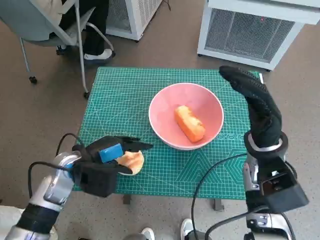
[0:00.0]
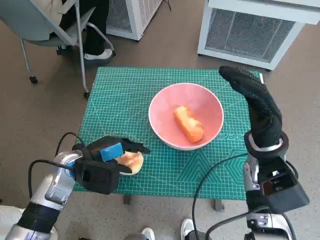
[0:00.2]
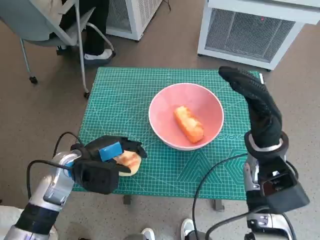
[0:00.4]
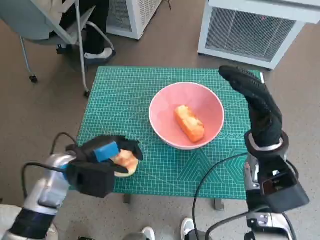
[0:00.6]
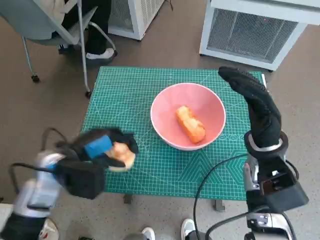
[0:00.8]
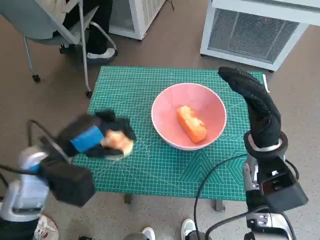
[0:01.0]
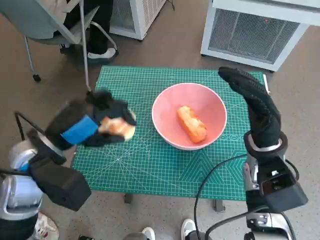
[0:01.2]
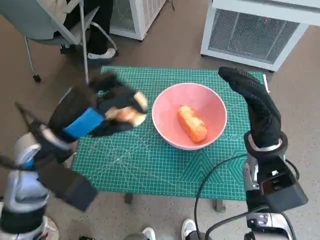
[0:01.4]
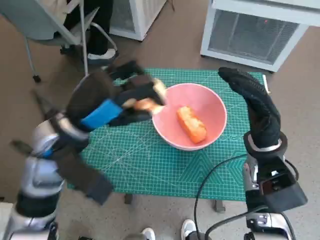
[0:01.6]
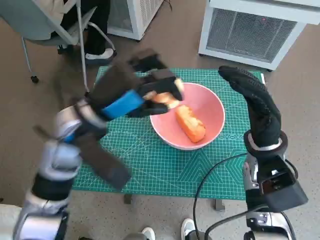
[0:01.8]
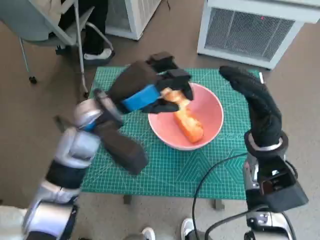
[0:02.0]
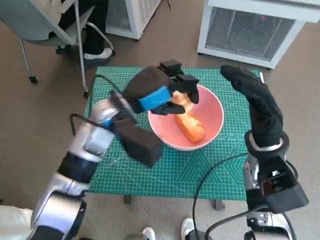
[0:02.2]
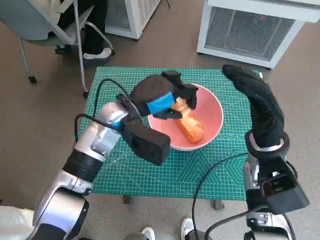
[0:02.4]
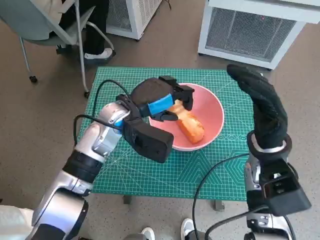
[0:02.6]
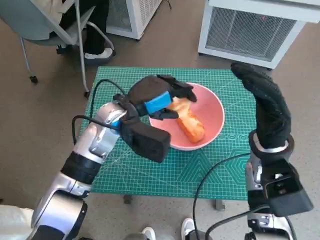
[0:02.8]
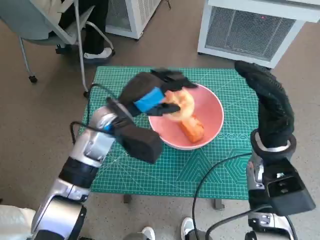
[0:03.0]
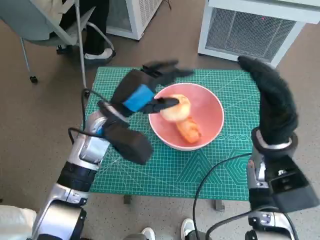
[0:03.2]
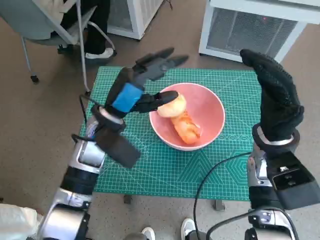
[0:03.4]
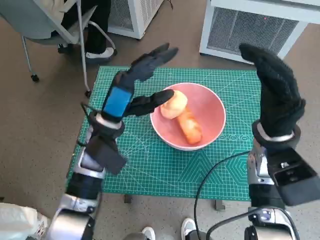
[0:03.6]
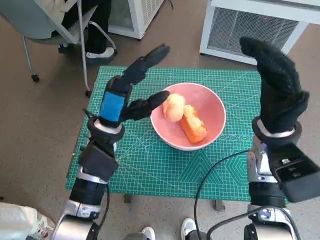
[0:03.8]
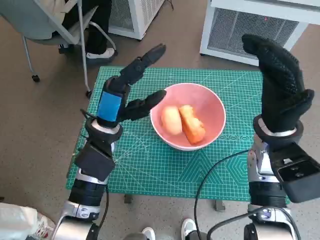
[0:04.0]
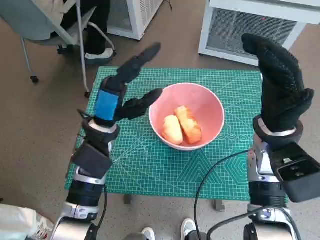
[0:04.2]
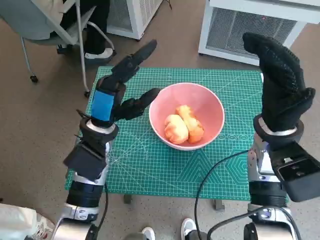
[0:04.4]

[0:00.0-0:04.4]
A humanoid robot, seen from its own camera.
Task of the whole recording: Push the bowl to the center of the table and put the bread into the bowl.
Step, 0:00.6 to 0:03.2: Place the round bread in pink bowl with left hand.
0:00.0 to 0:01.4: The left hand heads upward, covering some 10 cm.
0:01.4 to 0:03.0: The left hand goes roughly 10 cm forward and to the right.

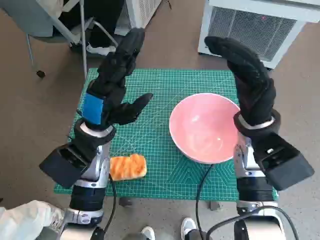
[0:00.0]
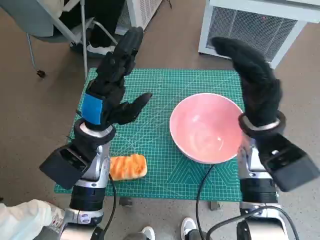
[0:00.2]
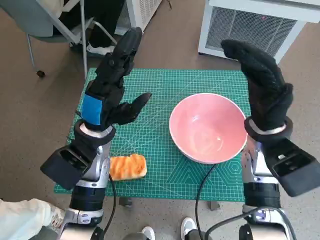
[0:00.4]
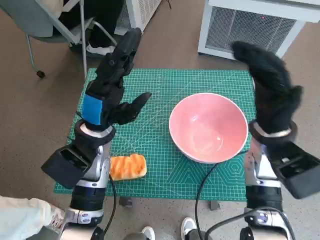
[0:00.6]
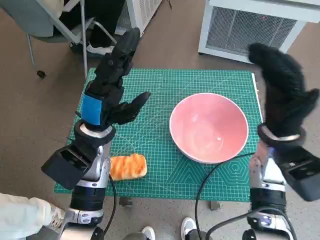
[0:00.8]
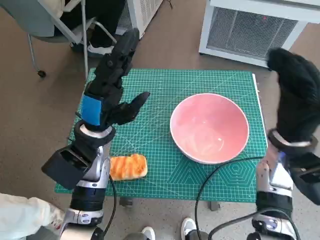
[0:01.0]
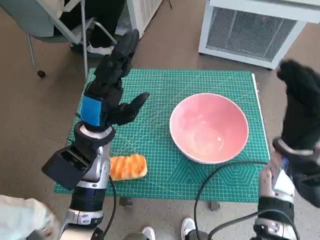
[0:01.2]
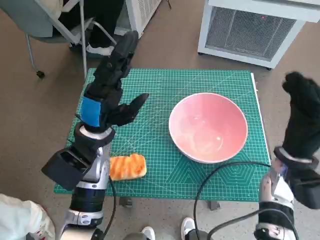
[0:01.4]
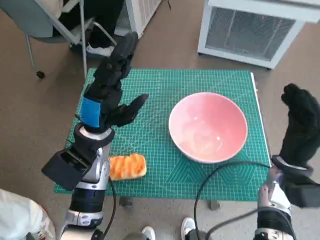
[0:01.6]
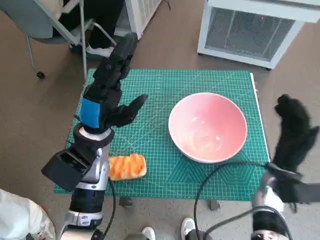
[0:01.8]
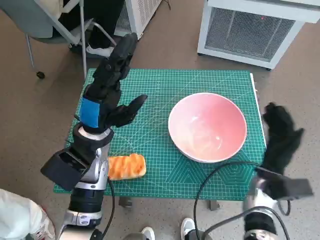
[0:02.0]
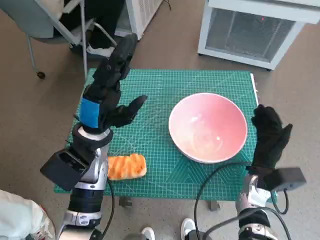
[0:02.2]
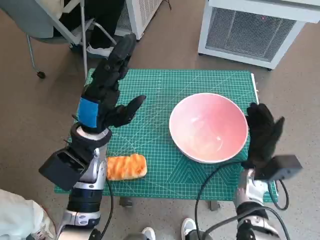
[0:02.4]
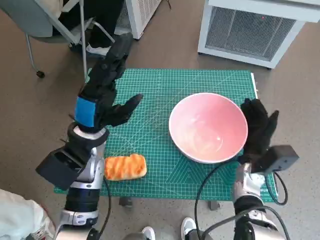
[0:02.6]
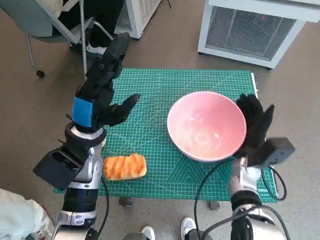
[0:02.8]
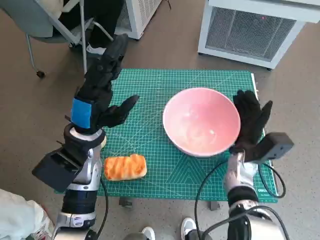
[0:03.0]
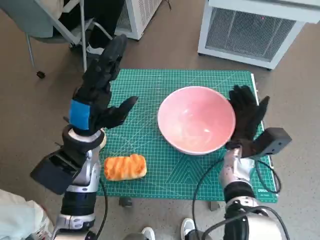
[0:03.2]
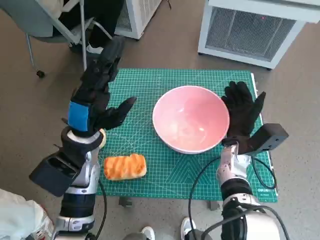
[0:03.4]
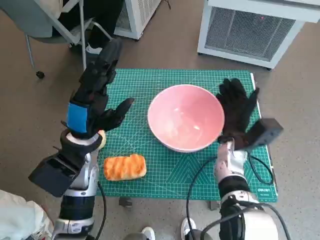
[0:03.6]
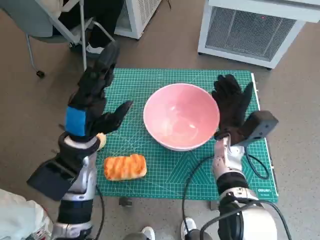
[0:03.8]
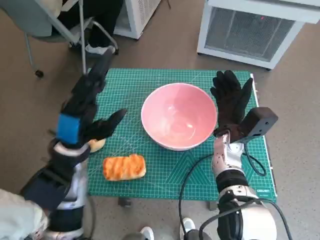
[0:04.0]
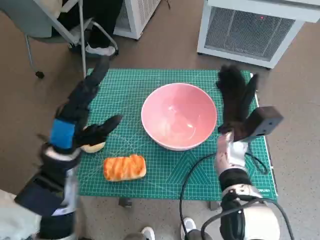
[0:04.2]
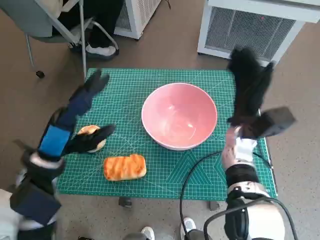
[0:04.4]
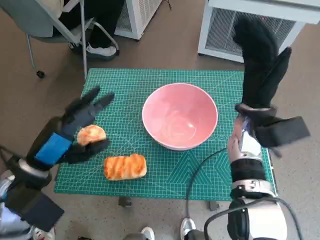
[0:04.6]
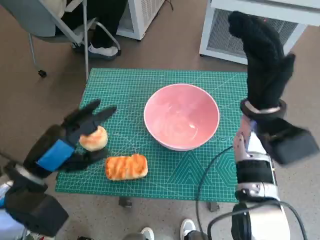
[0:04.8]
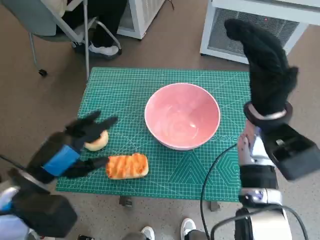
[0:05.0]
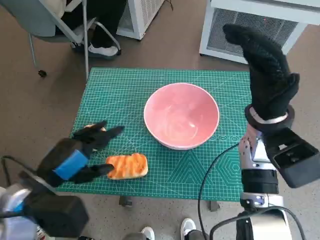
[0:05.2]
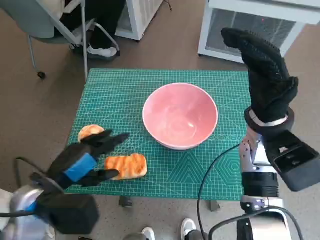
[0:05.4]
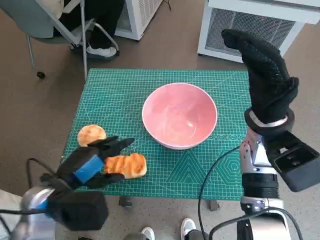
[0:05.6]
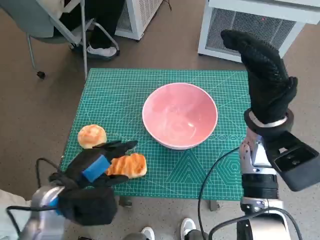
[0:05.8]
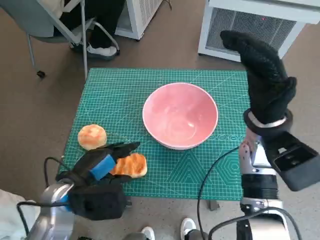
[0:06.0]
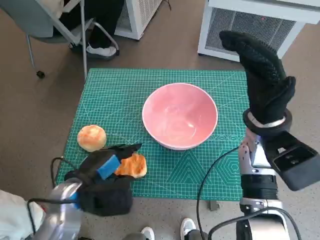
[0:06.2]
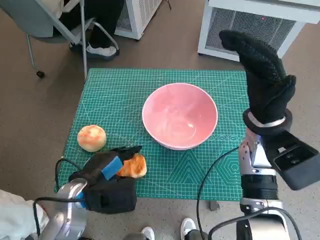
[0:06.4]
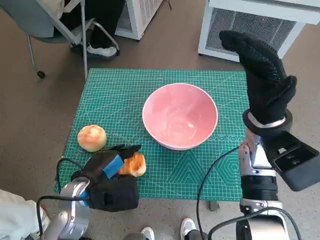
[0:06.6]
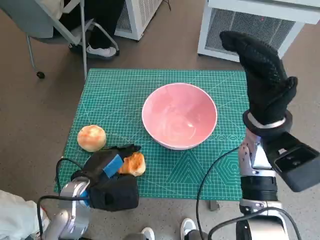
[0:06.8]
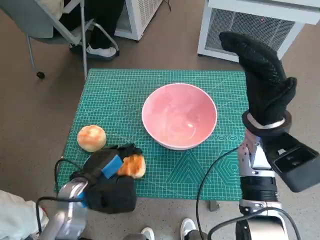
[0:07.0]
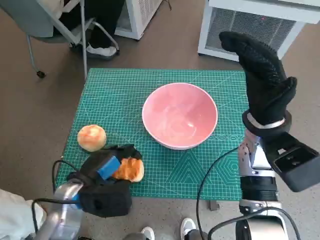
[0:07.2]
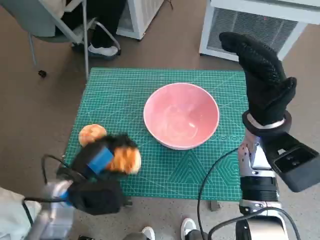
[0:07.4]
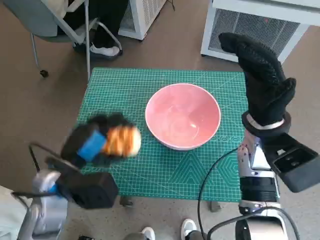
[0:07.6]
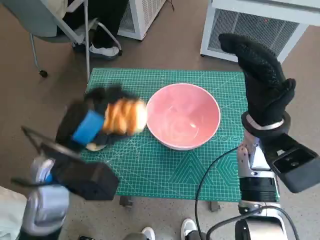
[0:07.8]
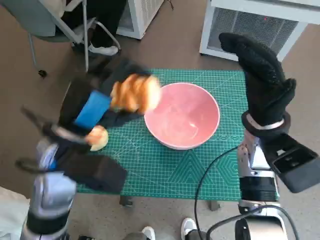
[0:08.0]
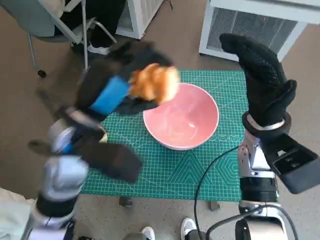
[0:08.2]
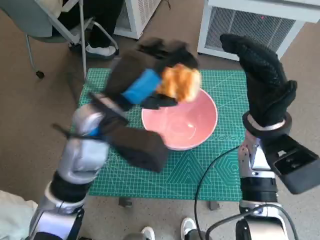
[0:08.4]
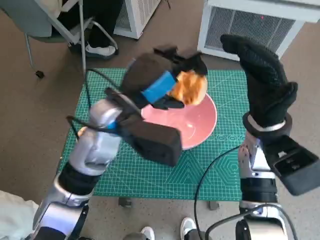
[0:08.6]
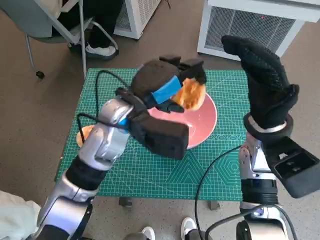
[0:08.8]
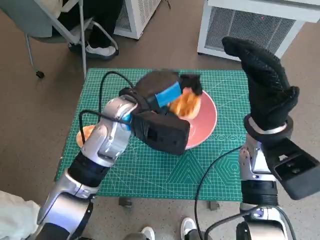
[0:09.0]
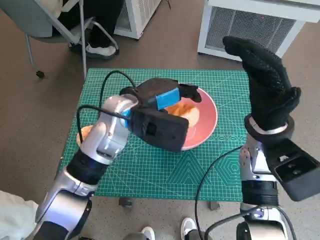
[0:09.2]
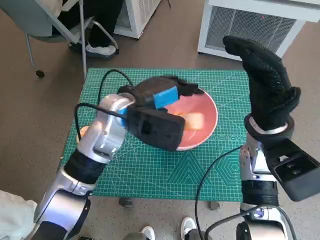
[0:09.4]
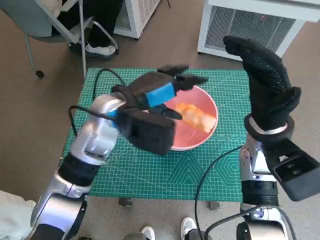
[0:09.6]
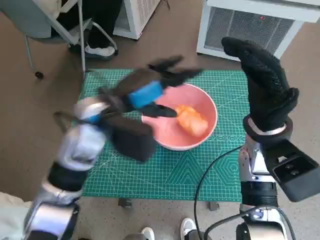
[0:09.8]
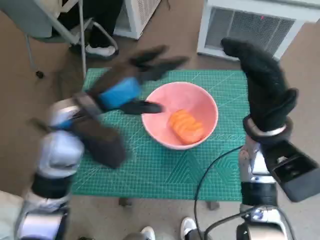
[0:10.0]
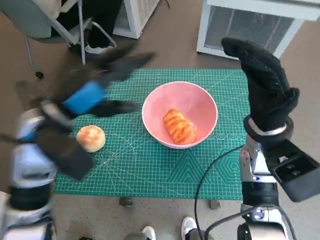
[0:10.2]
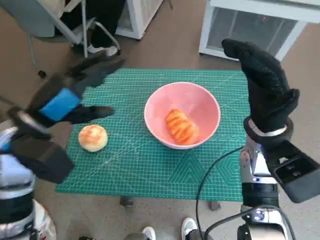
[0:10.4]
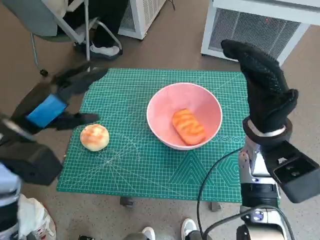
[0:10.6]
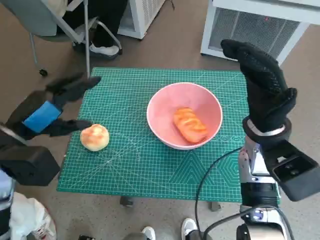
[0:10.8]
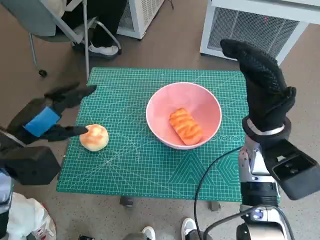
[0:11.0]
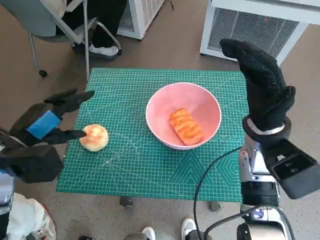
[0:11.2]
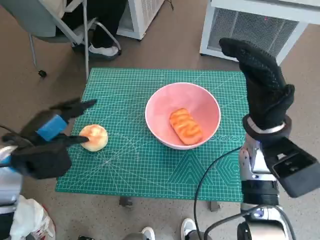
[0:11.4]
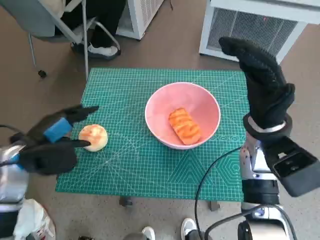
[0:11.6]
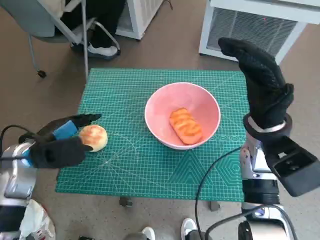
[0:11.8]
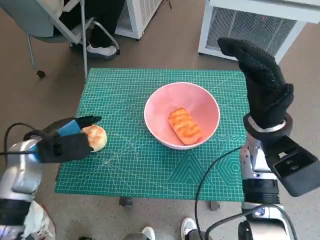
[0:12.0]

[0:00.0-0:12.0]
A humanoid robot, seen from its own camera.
Task of the whole recording: Push the bowl to the center of the table and put the bread into the bowl.
Step, 0:00.0 to 0:04.2: Move the pink bowl to the center of table with right hand.
Step, 0:04.4 to 0:07.0: Grasp the long bread with left hand.
Step, 0:07.2 to 0:09.6: Place the long bread in pink bowl with left hand.
0:01.6 to 0:03.0: The right hand travels to the left by about 5 cm.
0:03.0 to 0:04.4: The right hand shifts about 5 cm upward, while the left hand moves backward and to the left, approximately 10 cm.
0:04.4 to 0:06.0: The right hand is displaced upward by approximately 10 cm. Meanwhile the left hand ends up some 5 cm from where it was.
0:07.6 to 0:09.0: The left hand travels to the right, forward and upward by approximately 15 cm.
0:09.0 to 0:10.4: The left hand goes some 15 cm to the left and backward.
0:10.4 to 0:12.0: The left hand is displaced downward by roughly 10 cm.

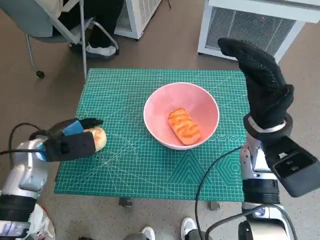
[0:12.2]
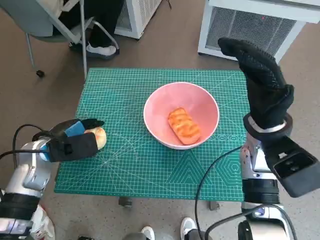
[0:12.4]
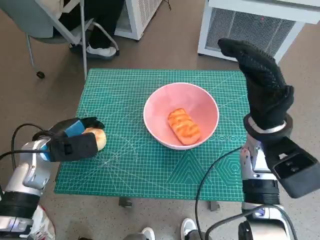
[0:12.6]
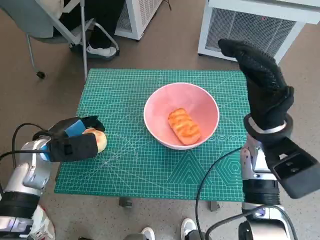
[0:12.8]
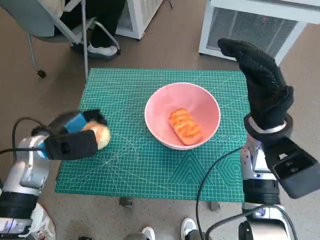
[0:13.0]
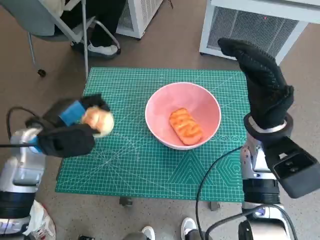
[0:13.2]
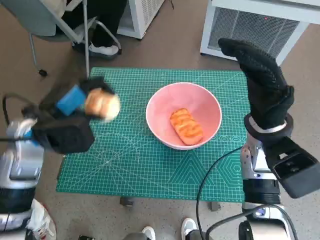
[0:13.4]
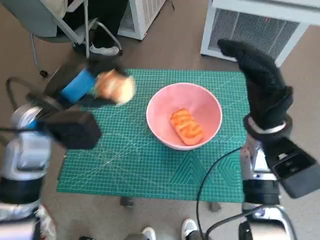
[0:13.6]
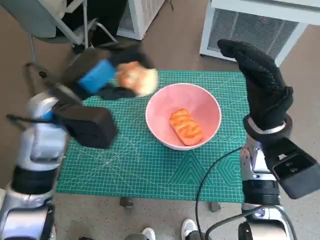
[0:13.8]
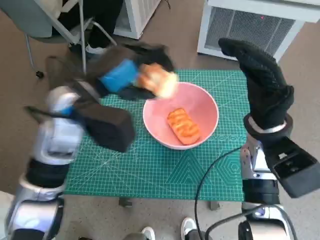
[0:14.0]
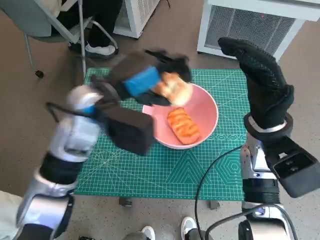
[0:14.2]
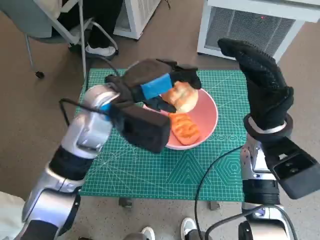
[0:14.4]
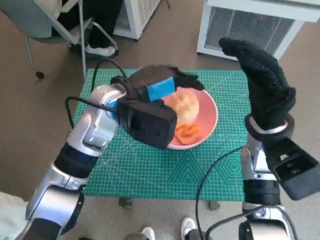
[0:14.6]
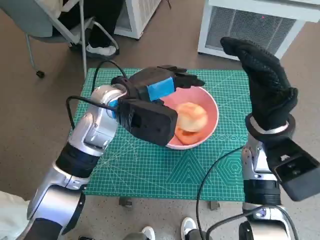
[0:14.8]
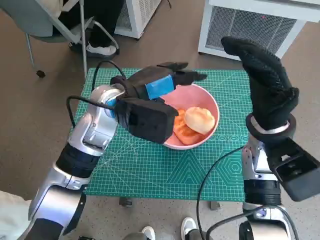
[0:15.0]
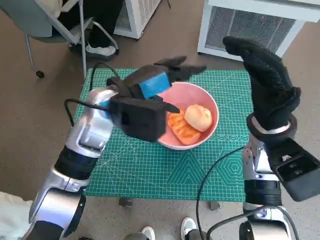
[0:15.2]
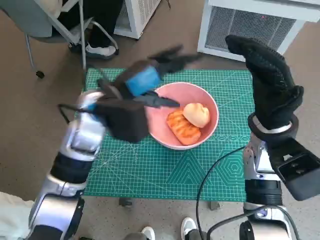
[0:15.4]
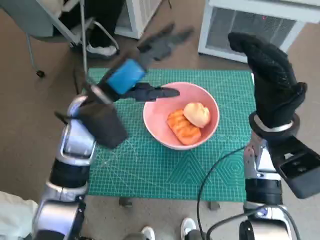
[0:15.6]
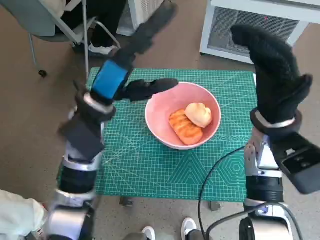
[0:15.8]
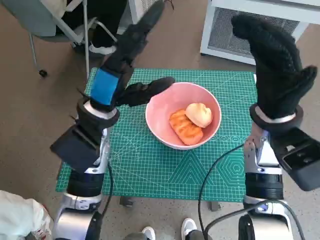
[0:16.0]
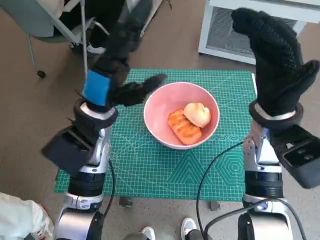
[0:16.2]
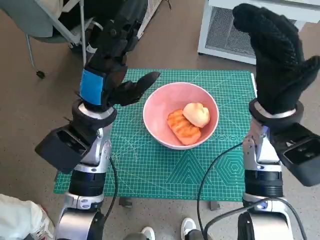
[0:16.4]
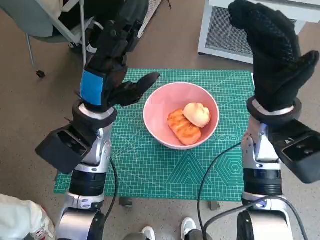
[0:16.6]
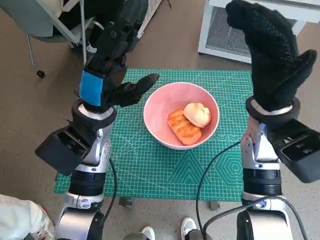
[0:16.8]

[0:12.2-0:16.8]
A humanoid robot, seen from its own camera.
Task of the whole recording: Push the bowl to the center of the table and put the bread into the bowl.
Step, 0:12.8 to 0:15.0: Place the round bread in pink bowl with left hand.
0:12.2 to 0:13.8: The left hand moves upward and to the right, some 15 cm.
0:13.8 to 0:15.2: The left hand is displaced to the right by some 10 cm.
